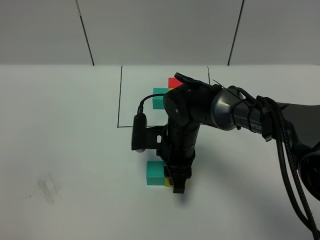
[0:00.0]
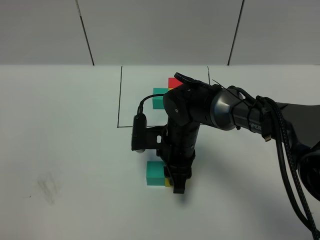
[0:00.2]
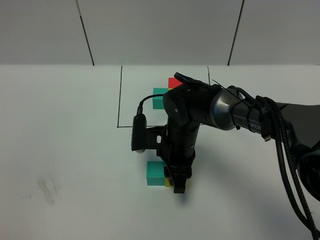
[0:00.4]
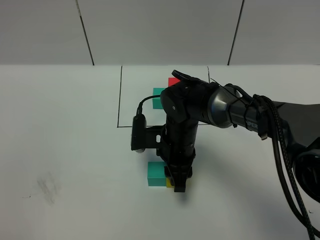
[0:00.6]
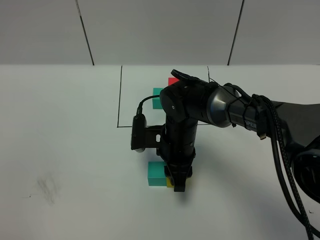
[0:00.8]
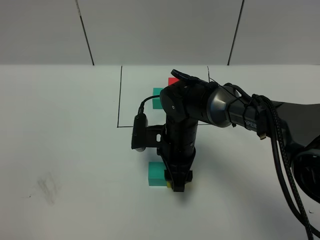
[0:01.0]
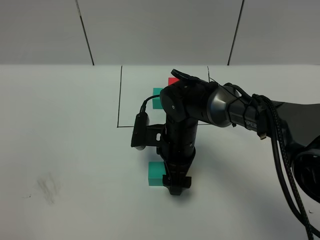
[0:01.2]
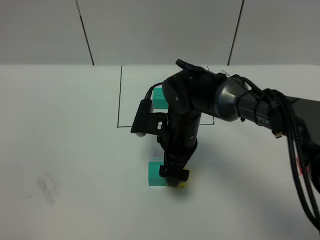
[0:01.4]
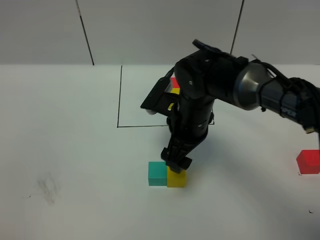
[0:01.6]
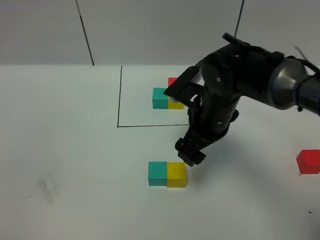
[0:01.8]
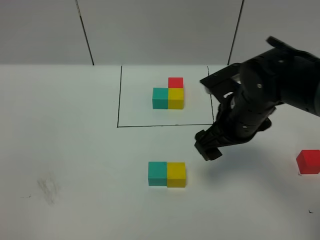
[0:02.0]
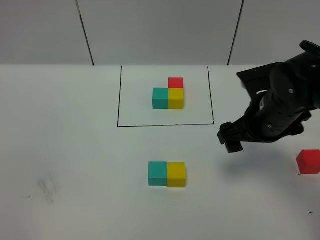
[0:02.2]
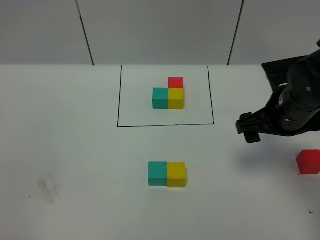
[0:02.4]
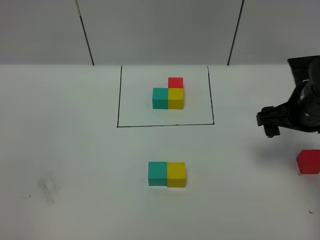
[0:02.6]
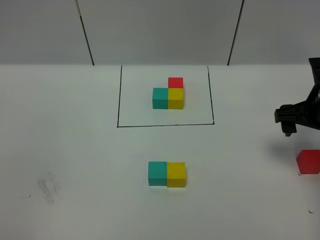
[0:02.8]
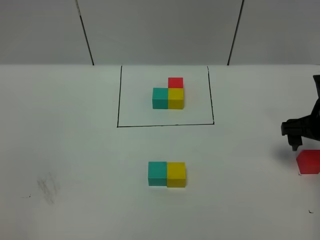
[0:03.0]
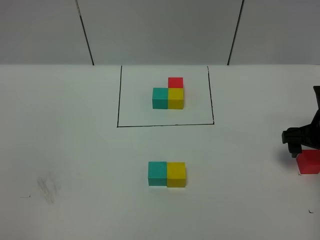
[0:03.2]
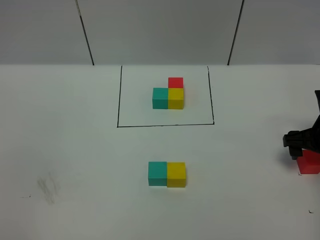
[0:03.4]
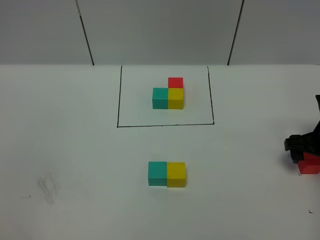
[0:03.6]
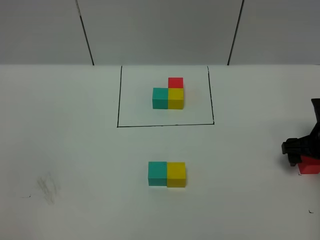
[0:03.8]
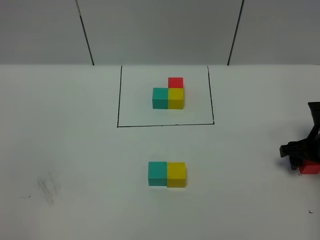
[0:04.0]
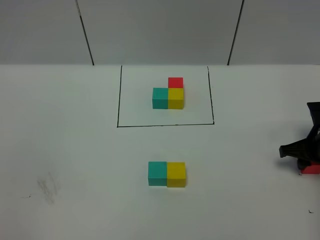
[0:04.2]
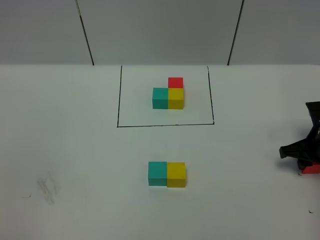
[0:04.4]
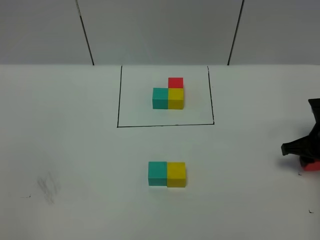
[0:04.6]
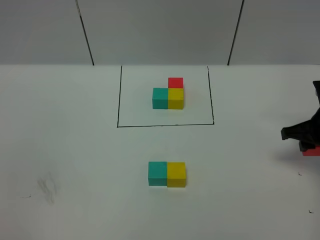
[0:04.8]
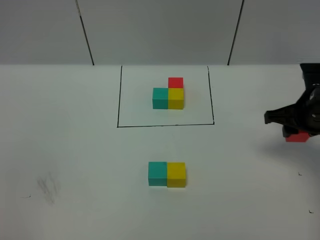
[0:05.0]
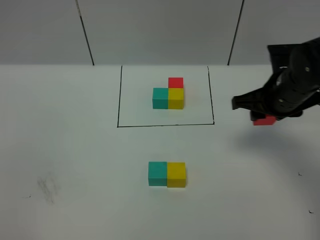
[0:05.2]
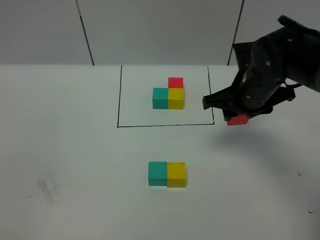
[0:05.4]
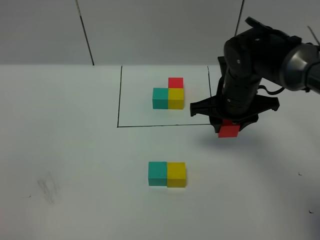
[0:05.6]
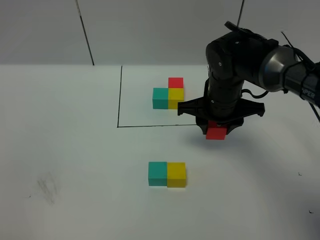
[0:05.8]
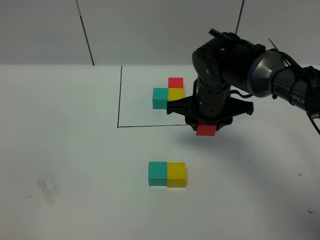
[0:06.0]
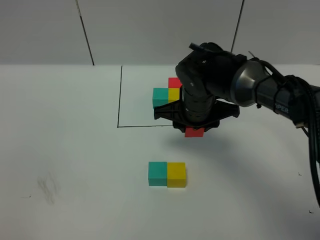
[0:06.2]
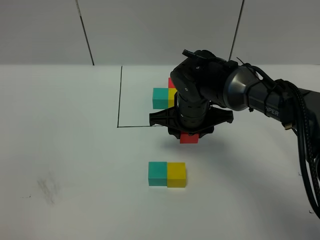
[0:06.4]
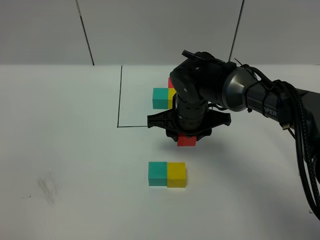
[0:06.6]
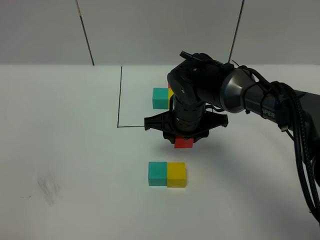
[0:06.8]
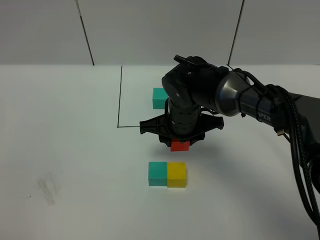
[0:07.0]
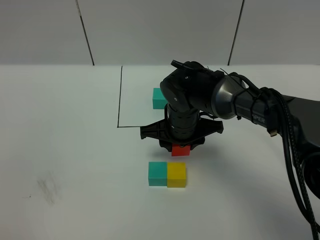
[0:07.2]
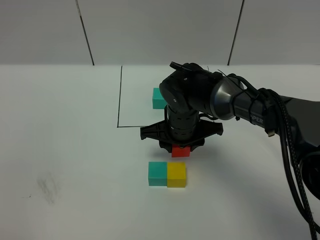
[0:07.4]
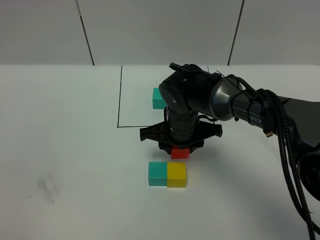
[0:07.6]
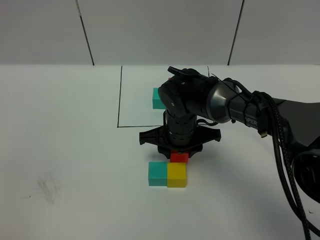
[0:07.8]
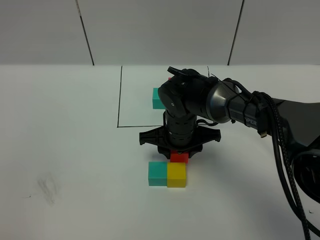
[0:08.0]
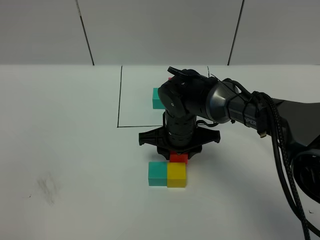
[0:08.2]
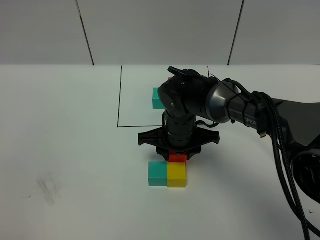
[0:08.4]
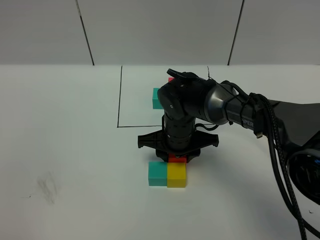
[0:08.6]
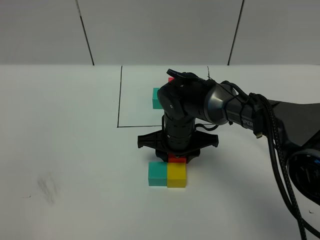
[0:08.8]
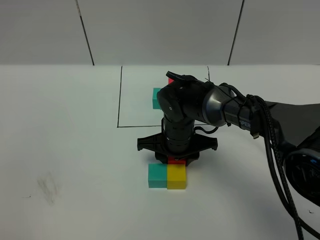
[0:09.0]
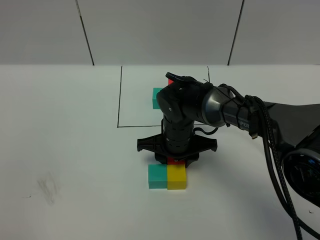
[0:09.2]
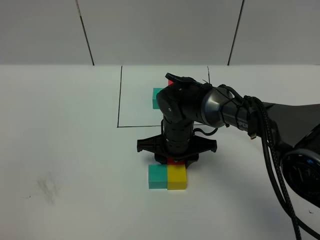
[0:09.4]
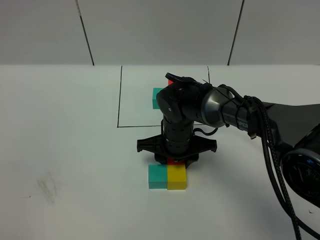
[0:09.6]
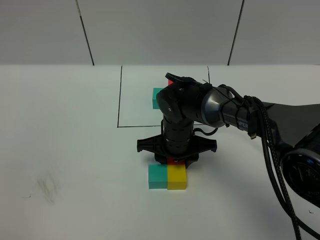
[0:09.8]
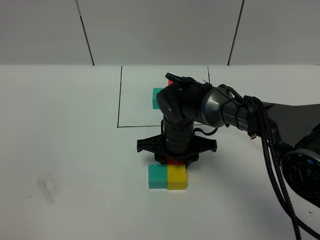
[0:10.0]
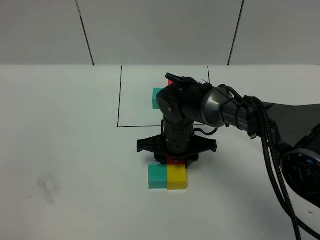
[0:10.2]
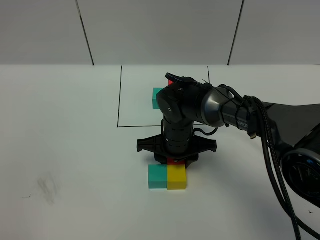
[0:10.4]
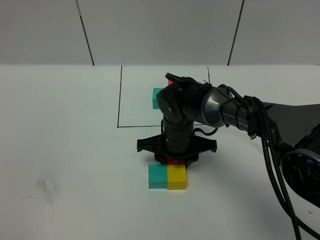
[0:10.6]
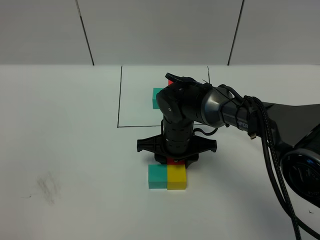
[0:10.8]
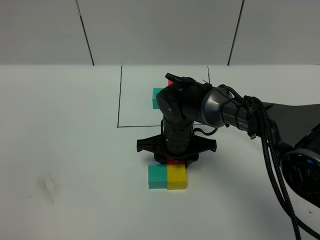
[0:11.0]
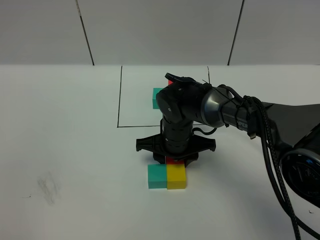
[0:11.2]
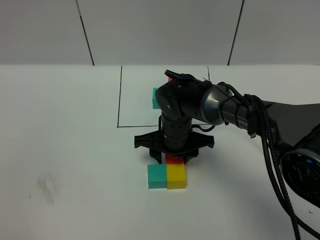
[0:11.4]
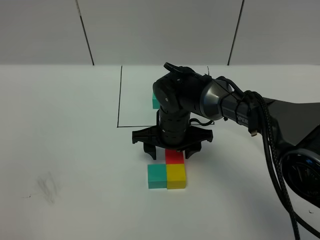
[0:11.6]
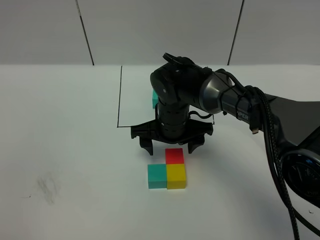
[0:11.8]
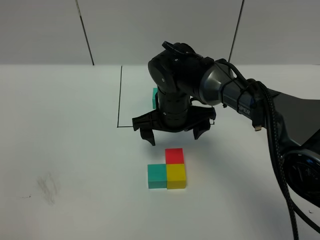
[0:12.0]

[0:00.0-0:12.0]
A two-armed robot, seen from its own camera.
Task of the whole recording: According to the building block template in front, assemble the scattered blocks together.
0:00.0 to 0:01.6: The right gripper shifts roughly 5 cm upward, and opens.
0:01.6 to 0:03.0: The right gripper heads to the right, covering some 25 cm.
0:03.0 to 0:04.4: The right gripper travels downward by roughly 5 cm, and closes.
0:04.4 to 0:06.0: The right gripper heads to the left, covering approximately 25 cm.
0:06.0 to 0:07.6: The right gripper ends up about 5 cm from where it was.
0:07.6 to 0:09.0: The grippers stay close to where they were, moving slightly.
0:09.0 to 0:10.4: The two grippers keep their place.
0:10.4 to 0:12.0: The right gripper travels upward by approximately 5 cm, and opens up.

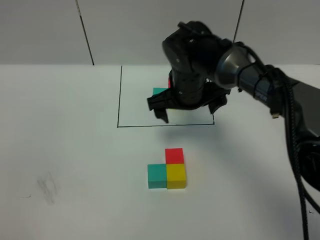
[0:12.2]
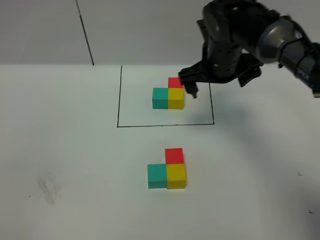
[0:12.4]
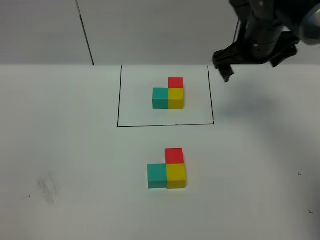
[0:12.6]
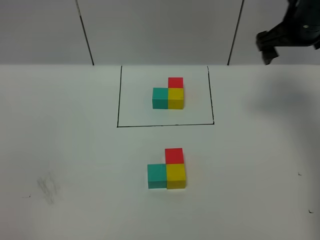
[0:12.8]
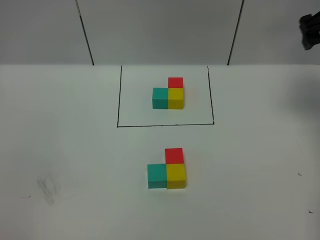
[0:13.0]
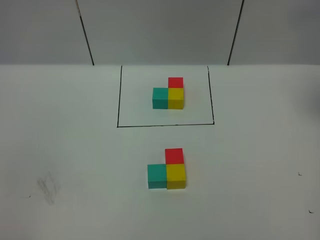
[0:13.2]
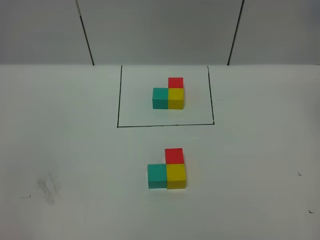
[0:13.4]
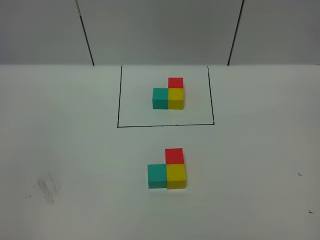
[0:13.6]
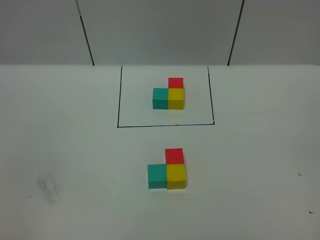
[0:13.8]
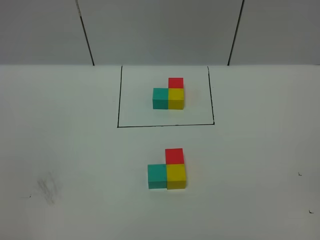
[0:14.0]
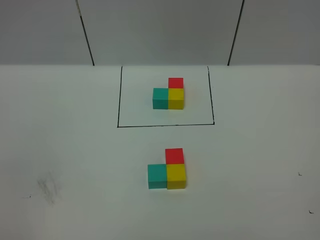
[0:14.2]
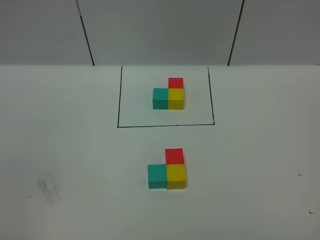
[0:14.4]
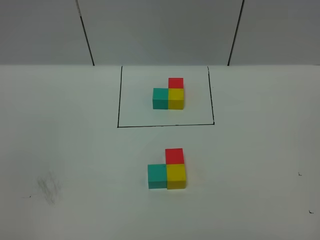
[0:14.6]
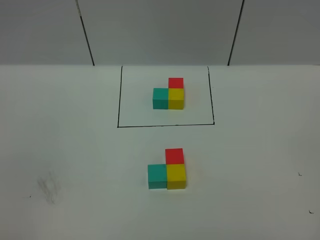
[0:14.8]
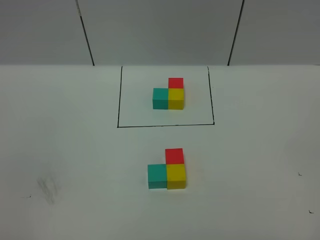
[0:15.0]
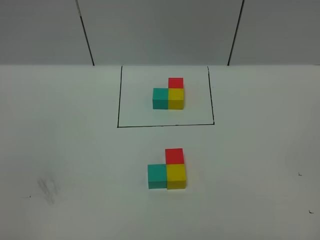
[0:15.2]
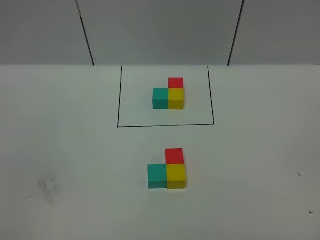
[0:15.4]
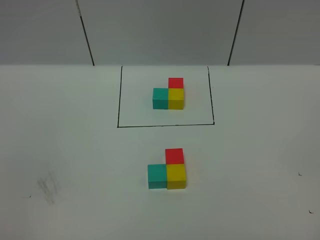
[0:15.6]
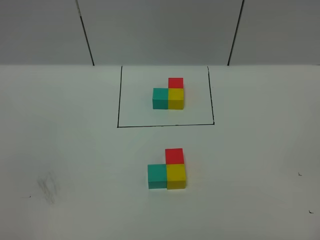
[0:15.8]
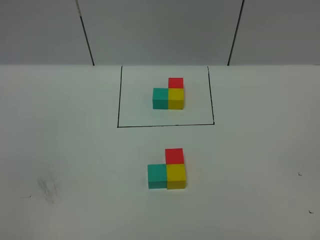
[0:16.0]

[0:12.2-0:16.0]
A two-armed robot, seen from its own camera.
Task of the whole recording: According to the building block template in front, assemble the scattered blocks together.
0:12.2 to 0:13.4: The right gripper is displaced to the right and upward by approximately 40 cm.
